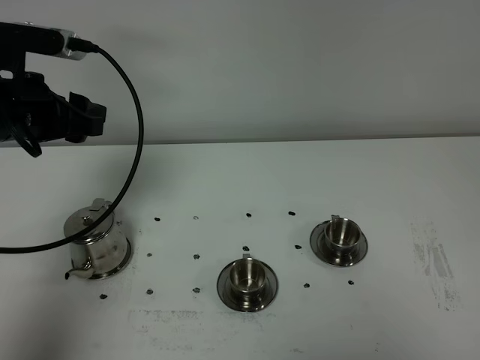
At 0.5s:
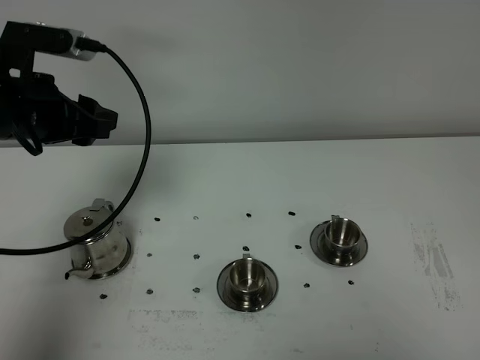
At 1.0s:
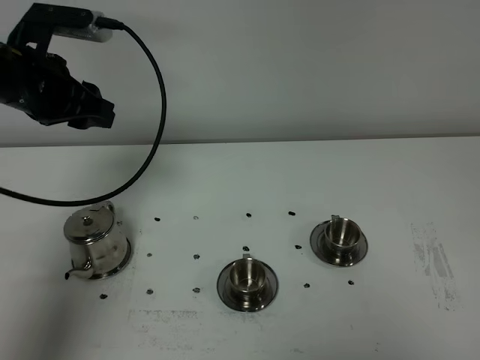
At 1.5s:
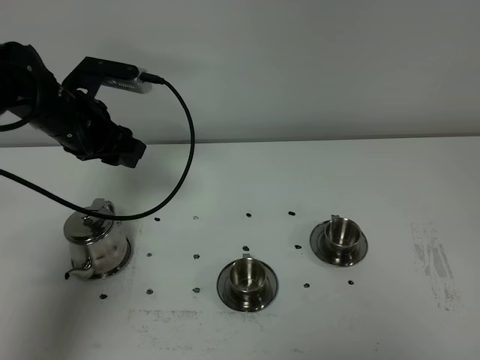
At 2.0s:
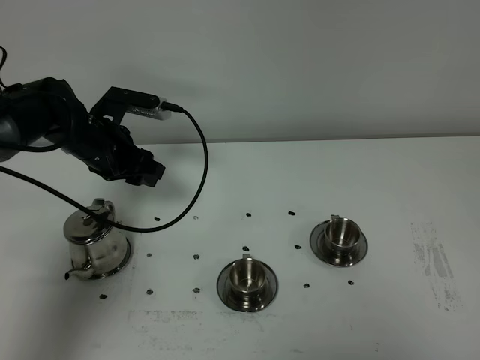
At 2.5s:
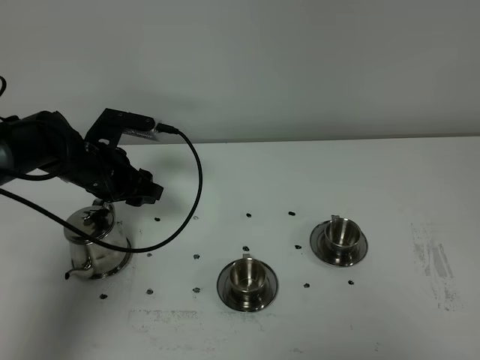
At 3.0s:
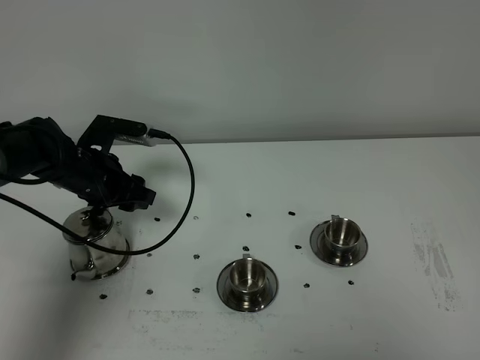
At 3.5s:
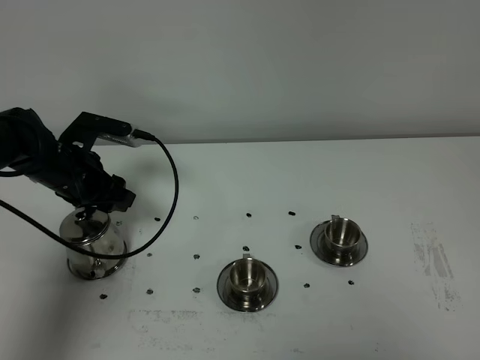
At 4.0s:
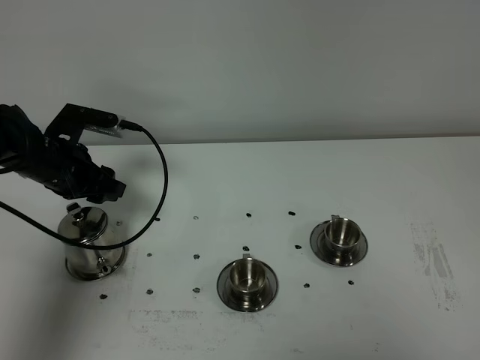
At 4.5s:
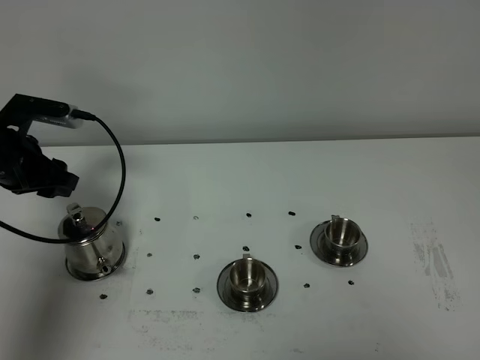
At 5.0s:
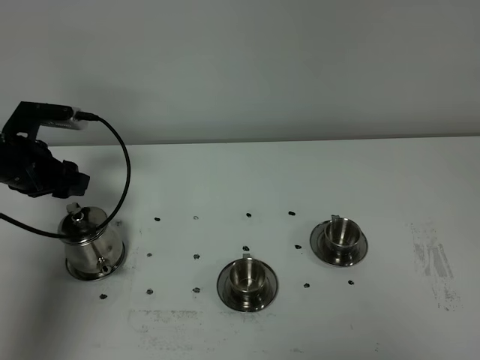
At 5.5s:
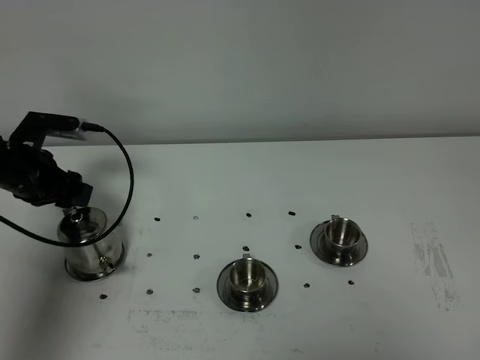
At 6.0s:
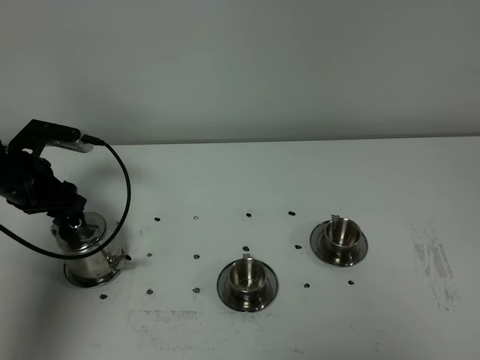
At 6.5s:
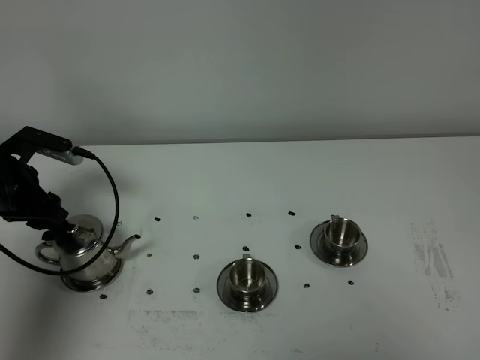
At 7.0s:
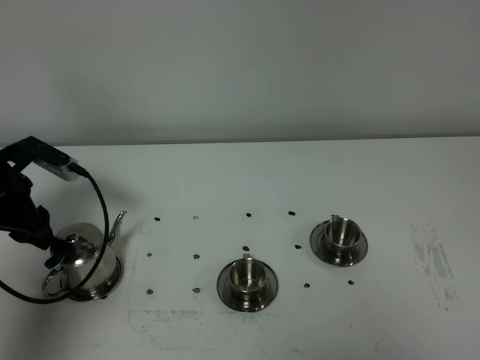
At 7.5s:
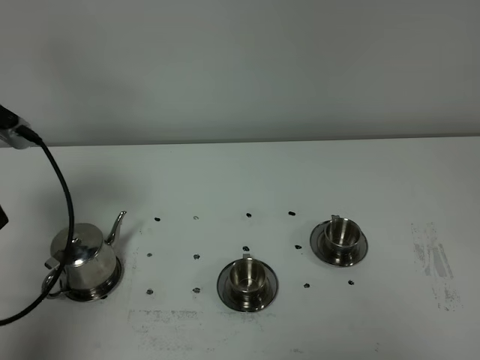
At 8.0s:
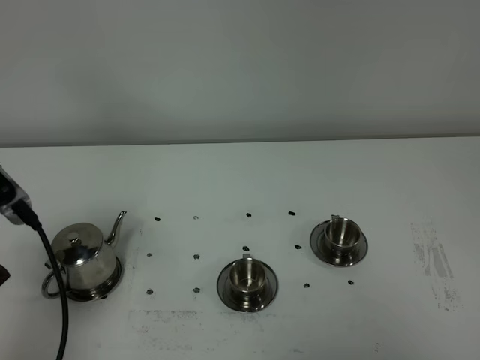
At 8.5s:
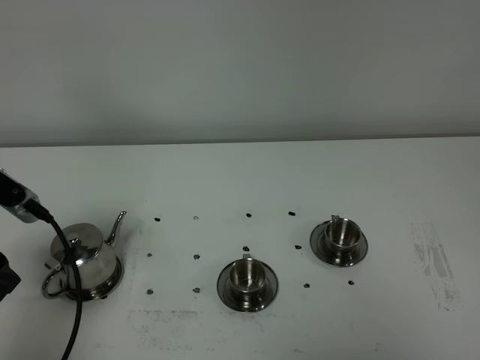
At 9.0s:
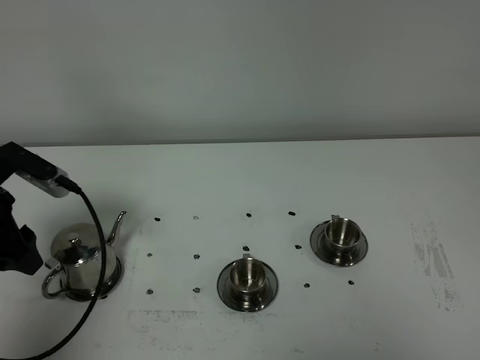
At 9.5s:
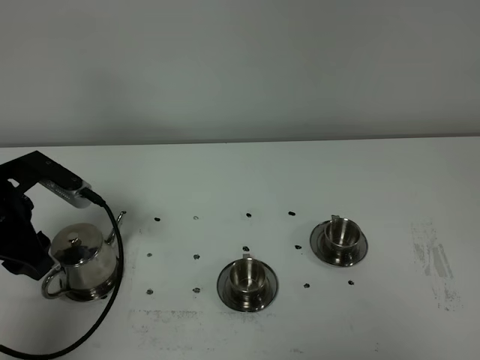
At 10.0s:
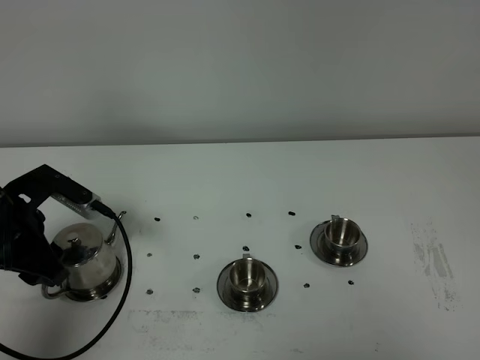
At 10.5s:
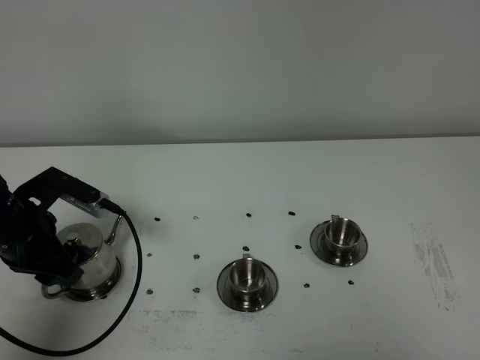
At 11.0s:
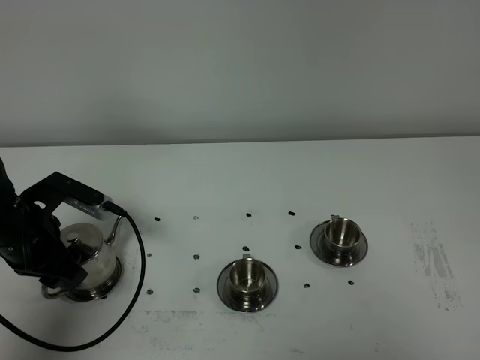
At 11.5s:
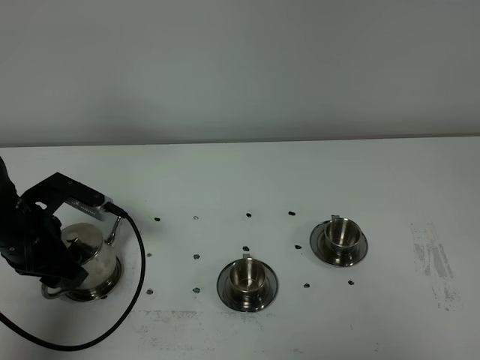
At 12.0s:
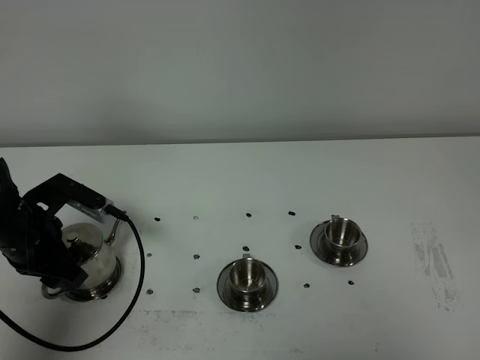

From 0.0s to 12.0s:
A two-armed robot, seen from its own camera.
Task of the whole recording: grasp the stainless steel teapot and pour the tea into the two stainless steel teacups one by one, put the stainless steel teapot back in its original place.
From 0.0s to 2.0s: The left gripper heads downward and forward, covering some 15 cm.
From 2.0s to 4.0s: The left gripper goes approximately 5 cm to the left.
From 4.0s to 6.0s: The left gripper travels to the left by about 5 cm.
From 6.0s to 8.0s: The left gripper moves backward and upward, roughly 25 cm.
From 8.0s to 10.0s: The left gripper is displaced downward and forward by some 15 cm.
From 10.0s to 12.0s: The grippers make only small movements.

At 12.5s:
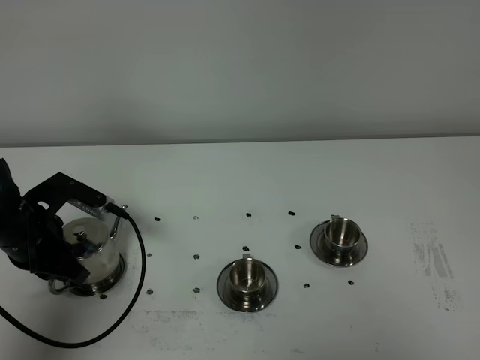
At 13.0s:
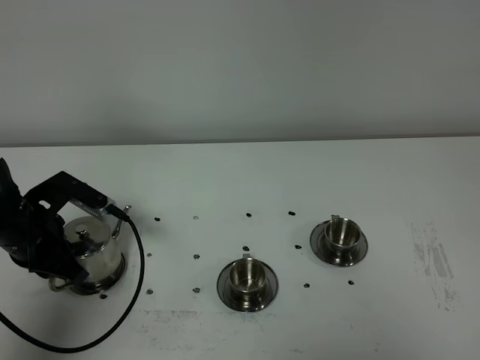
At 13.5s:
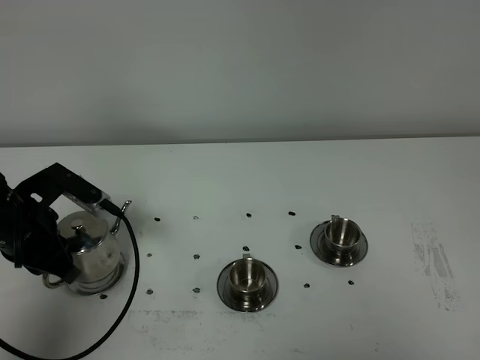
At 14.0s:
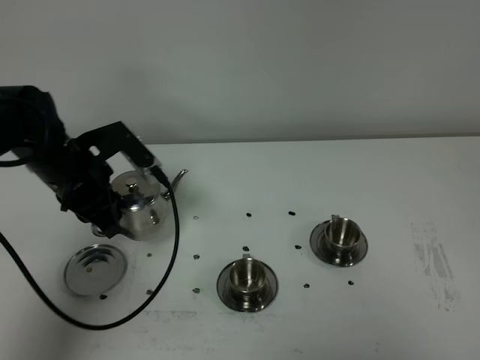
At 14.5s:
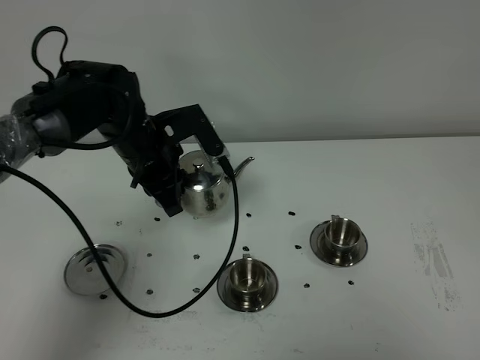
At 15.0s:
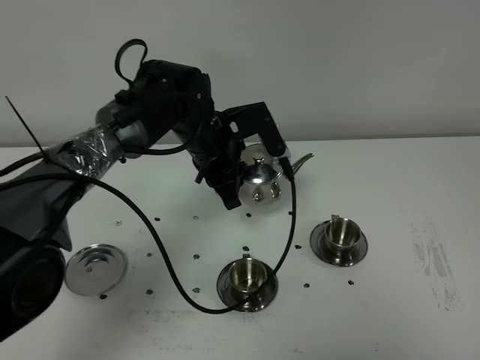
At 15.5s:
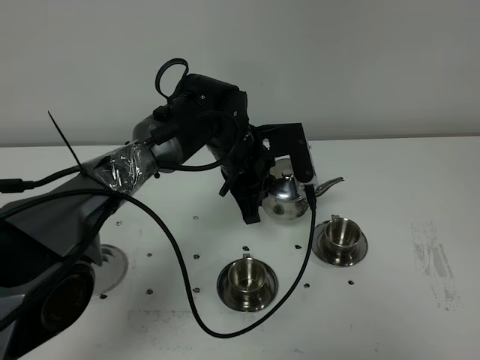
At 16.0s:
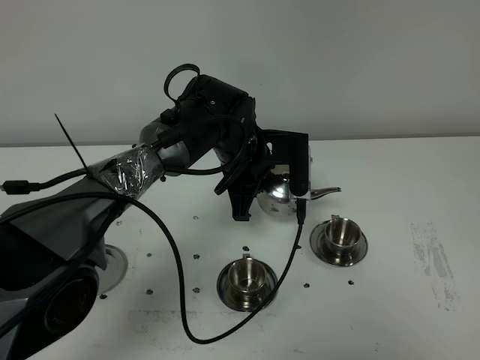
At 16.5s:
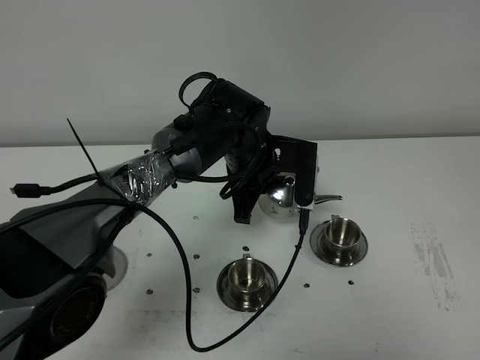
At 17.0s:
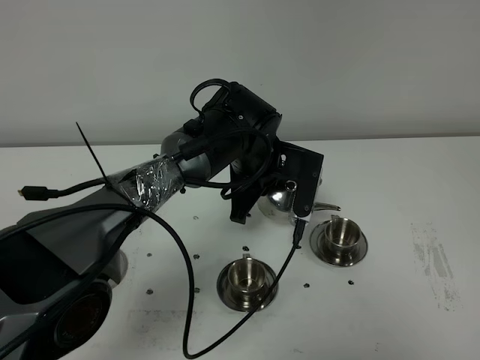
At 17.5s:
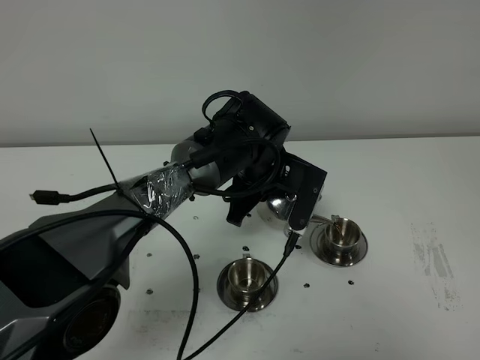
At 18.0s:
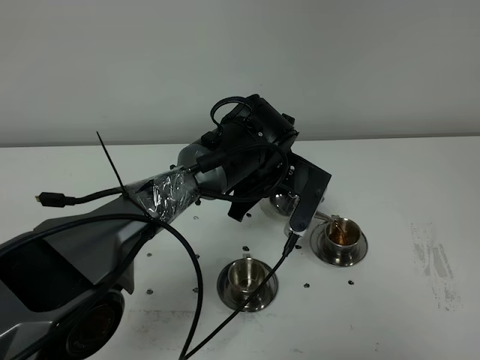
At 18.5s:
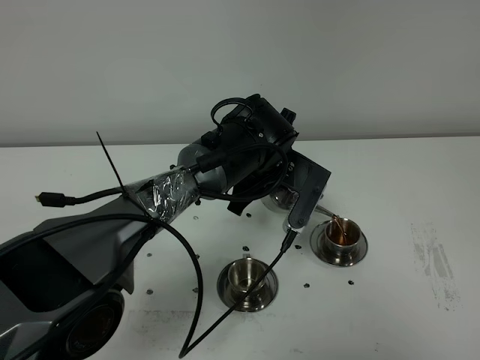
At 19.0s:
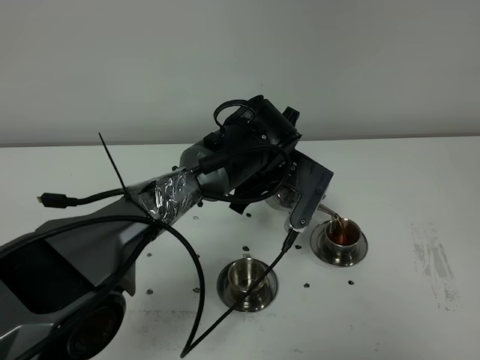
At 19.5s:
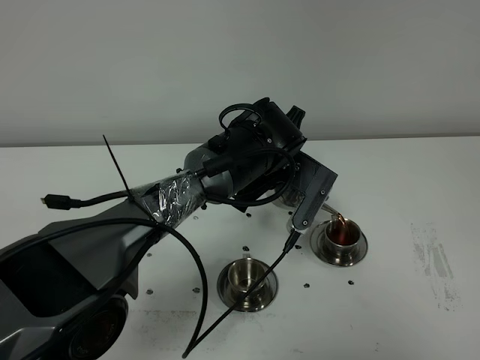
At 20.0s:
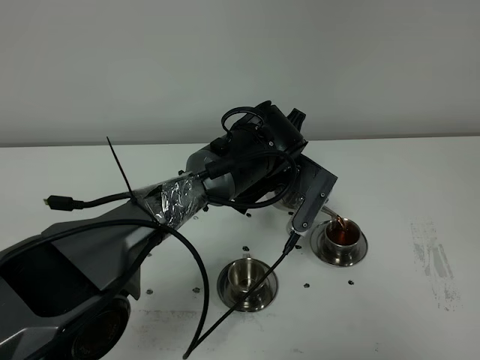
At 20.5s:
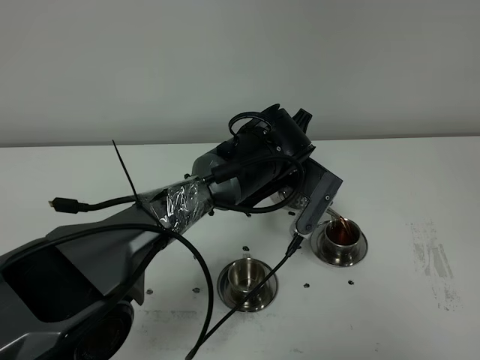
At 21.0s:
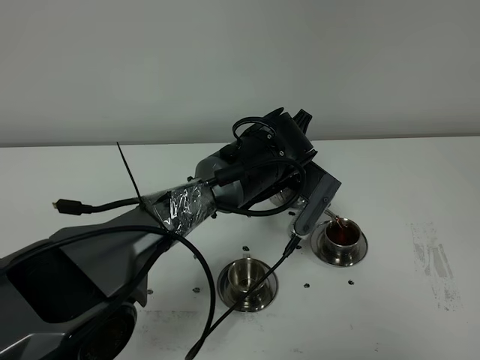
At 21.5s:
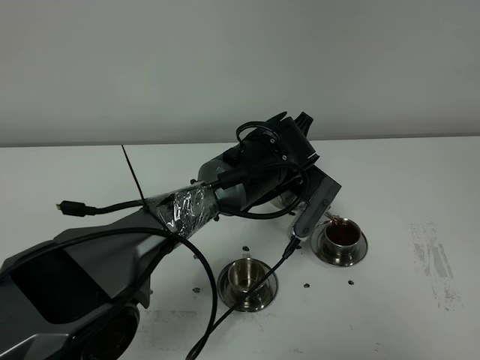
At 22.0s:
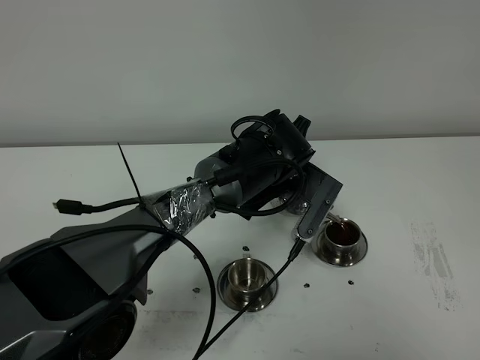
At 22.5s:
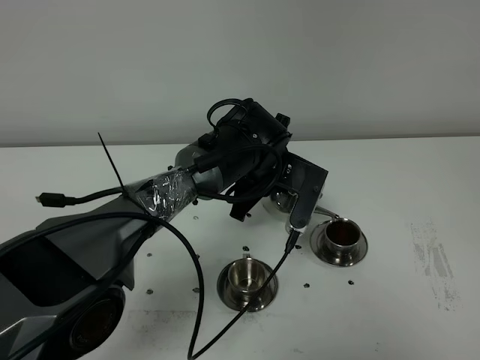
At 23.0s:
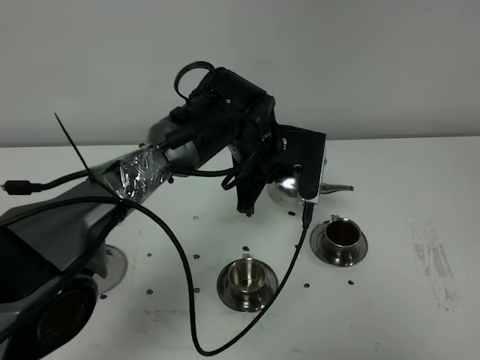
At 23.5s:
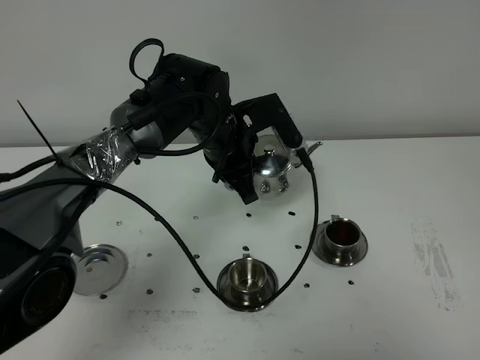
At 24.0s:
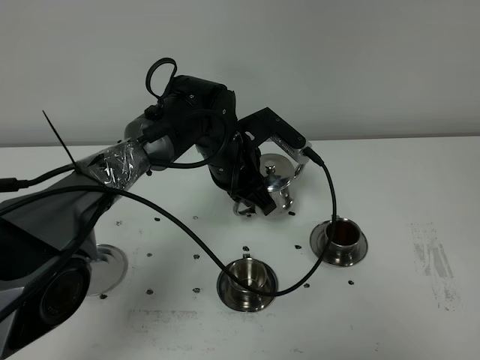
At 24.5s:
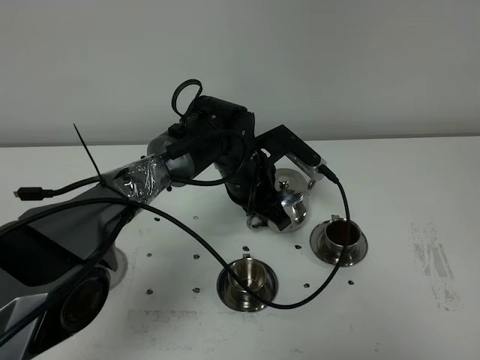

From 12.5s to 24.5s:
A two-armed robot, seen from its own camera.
Task of the whole recording: grasp the stainless steel teapot and pour the tea into the two stainless steel teacups one by one, put the stainless steel teapot back in its original place.
From 12.5s to 14.5s: The left gripper is displaced to the right and forward by roughly 20 cm.
From 14.5s to 16.5s: The left gripper goes some 15 cm to the right.
From 18.5s to 22.5s: The grippers make only small movements.

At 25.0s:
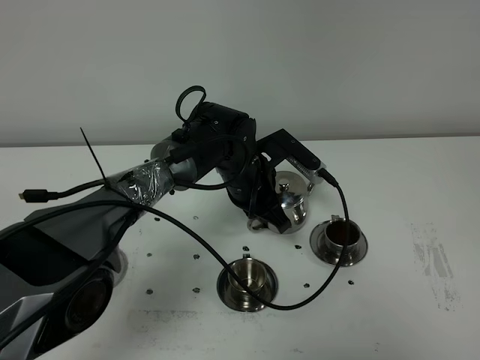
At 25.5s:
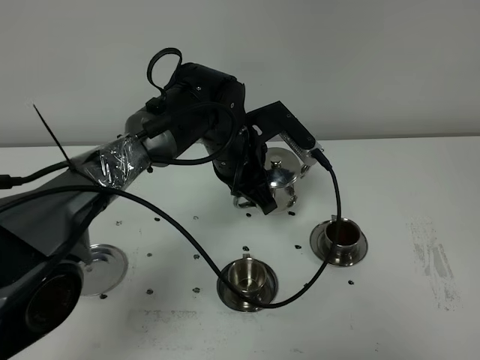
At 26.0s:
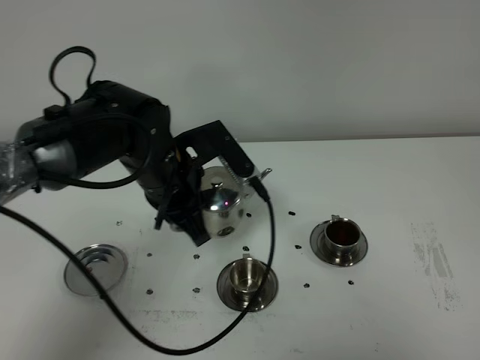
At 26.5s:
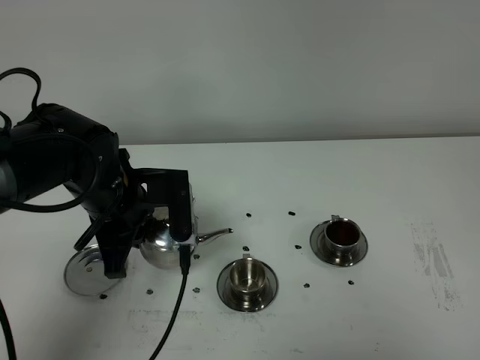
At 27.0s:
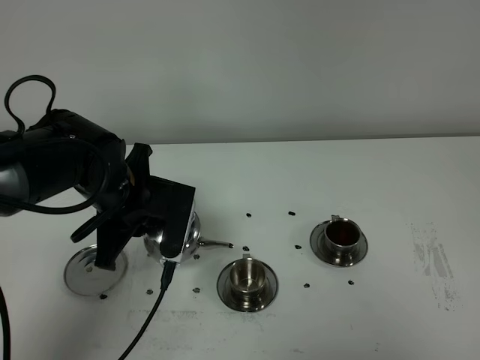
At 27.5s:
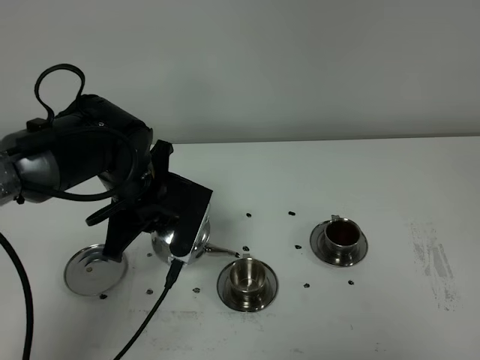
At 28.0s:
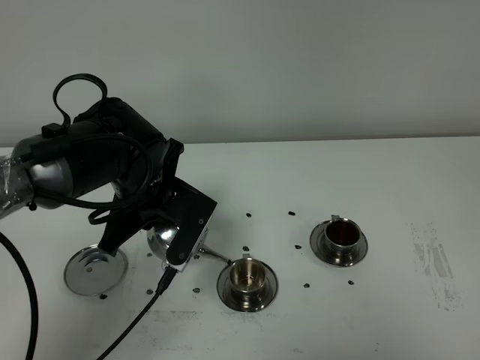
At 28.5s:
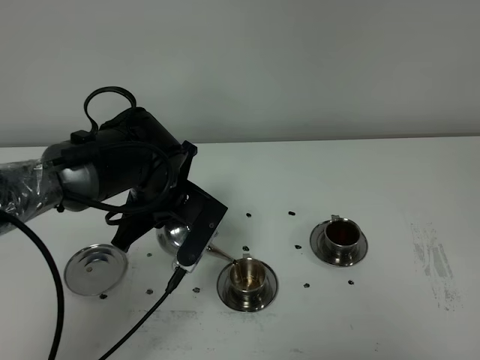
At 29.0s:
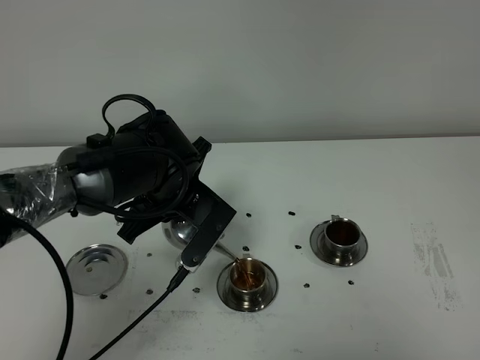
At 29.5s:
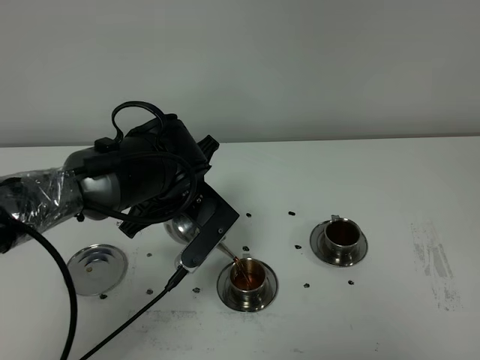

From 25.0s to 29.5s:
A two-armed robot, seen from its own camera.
Task of the whole recording: grasp the stainless steel teapot and pour the tea into the two stainless steel teacups one by one, put the stainless steel teapot back in its original place.
From 25.0s to 27.0s: The left gripper shifts some 20 cm to the left, backward and upward.
From 27.0s to 29.5s: The left gripper goes about 5 cm to the right.
